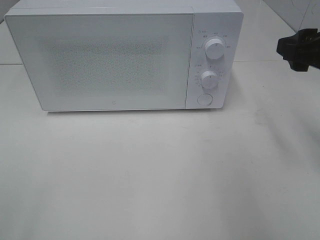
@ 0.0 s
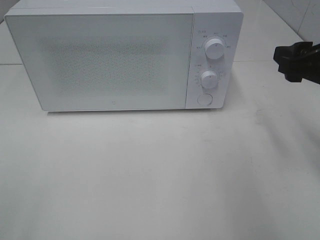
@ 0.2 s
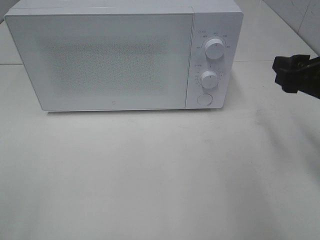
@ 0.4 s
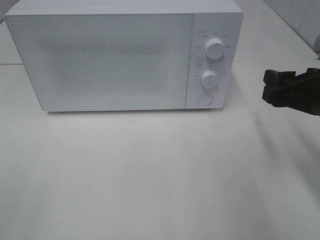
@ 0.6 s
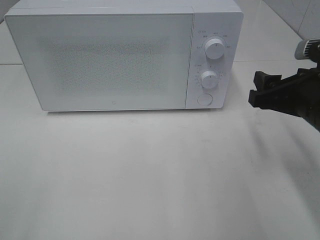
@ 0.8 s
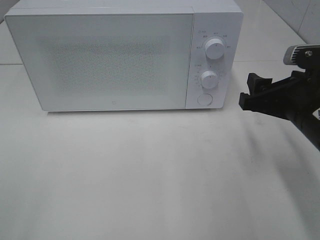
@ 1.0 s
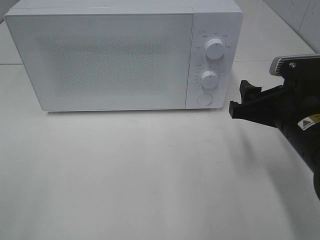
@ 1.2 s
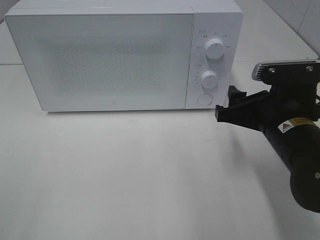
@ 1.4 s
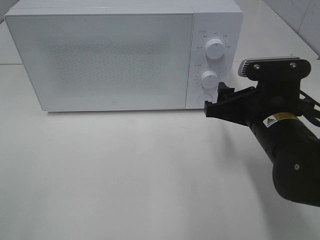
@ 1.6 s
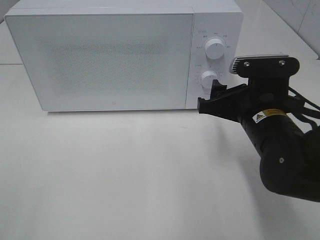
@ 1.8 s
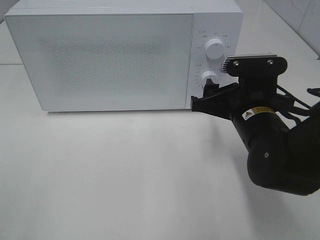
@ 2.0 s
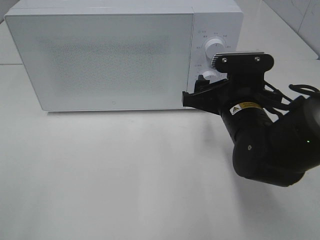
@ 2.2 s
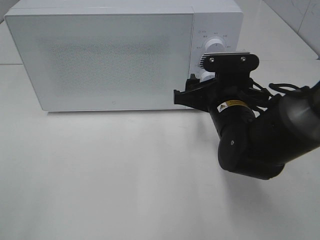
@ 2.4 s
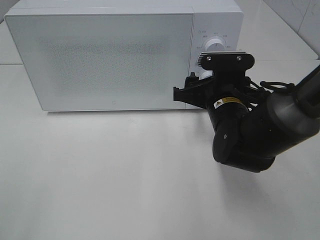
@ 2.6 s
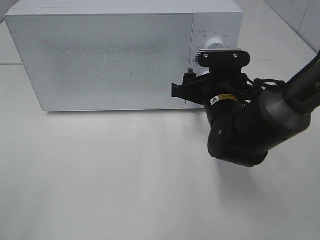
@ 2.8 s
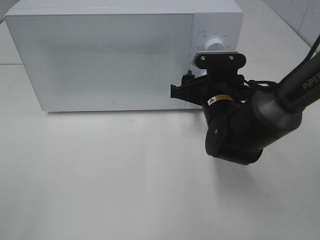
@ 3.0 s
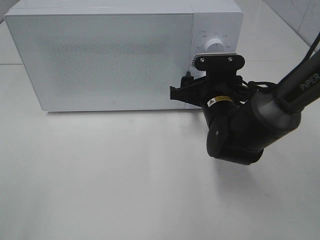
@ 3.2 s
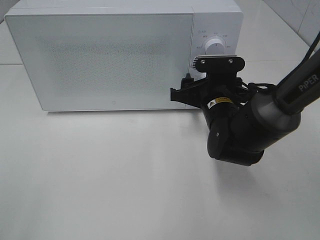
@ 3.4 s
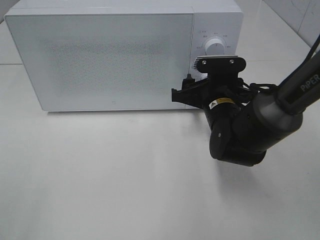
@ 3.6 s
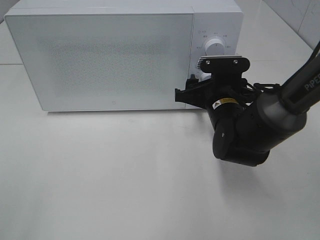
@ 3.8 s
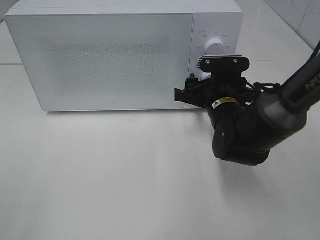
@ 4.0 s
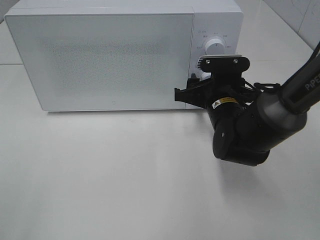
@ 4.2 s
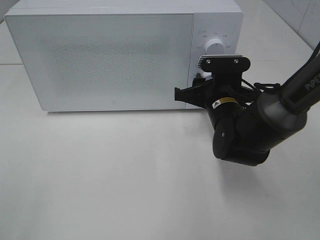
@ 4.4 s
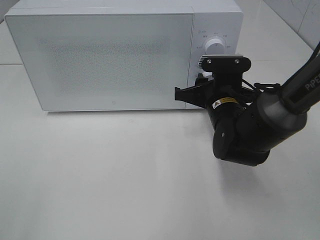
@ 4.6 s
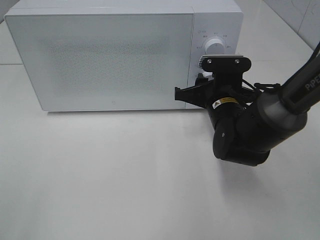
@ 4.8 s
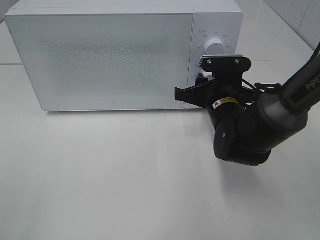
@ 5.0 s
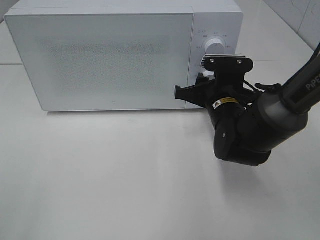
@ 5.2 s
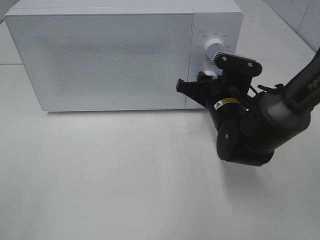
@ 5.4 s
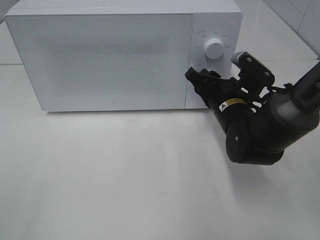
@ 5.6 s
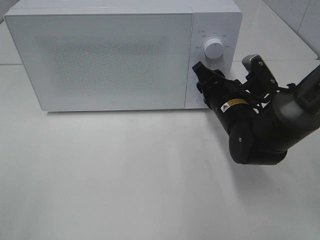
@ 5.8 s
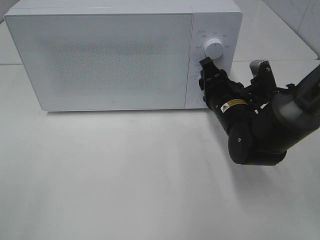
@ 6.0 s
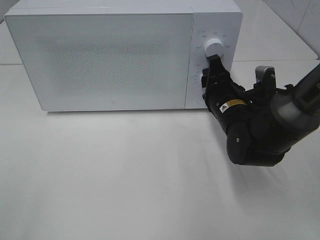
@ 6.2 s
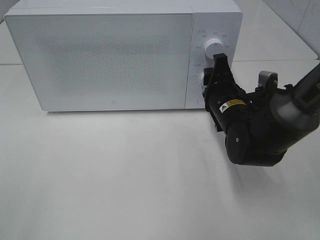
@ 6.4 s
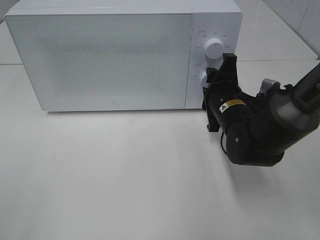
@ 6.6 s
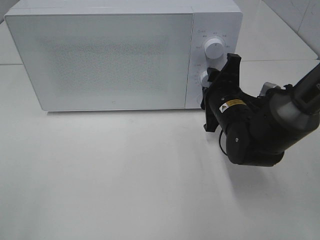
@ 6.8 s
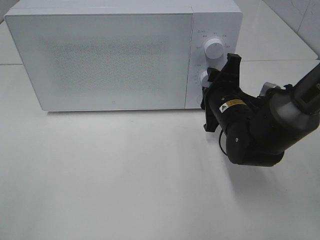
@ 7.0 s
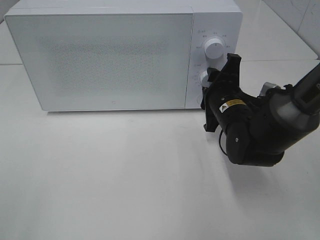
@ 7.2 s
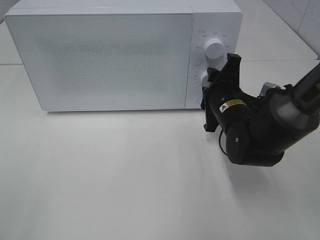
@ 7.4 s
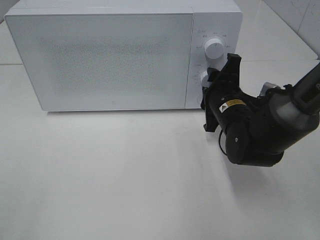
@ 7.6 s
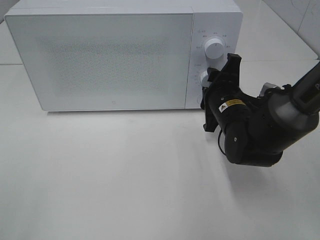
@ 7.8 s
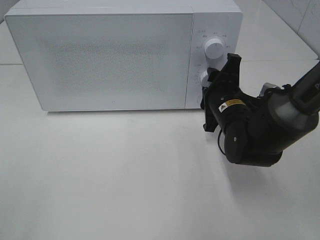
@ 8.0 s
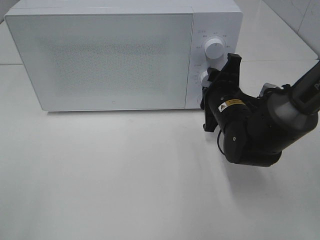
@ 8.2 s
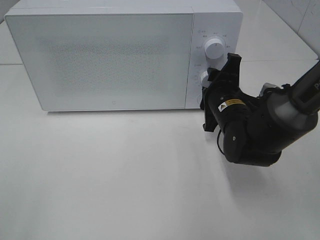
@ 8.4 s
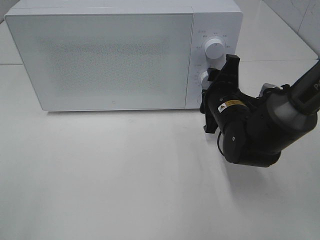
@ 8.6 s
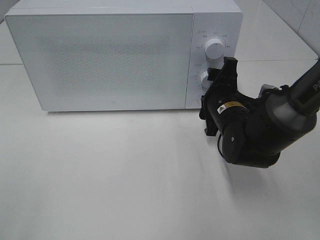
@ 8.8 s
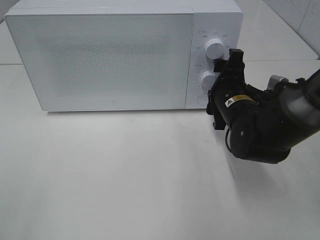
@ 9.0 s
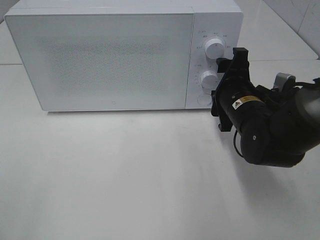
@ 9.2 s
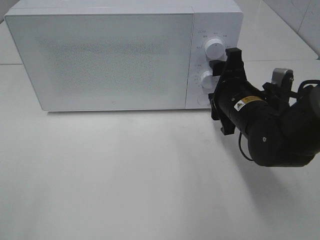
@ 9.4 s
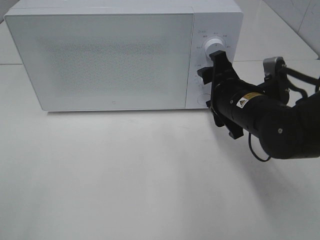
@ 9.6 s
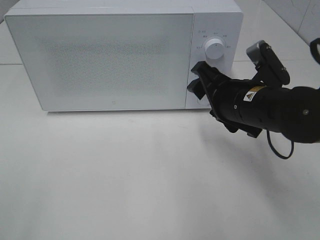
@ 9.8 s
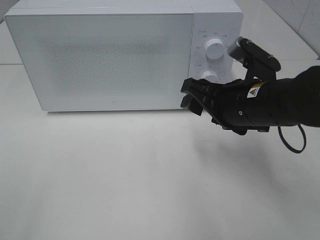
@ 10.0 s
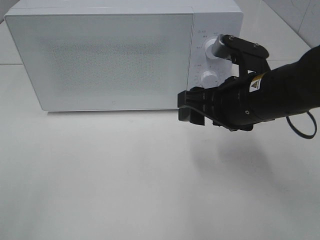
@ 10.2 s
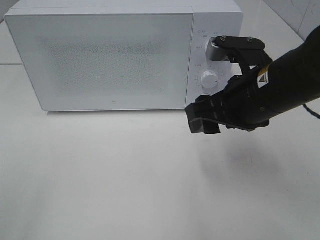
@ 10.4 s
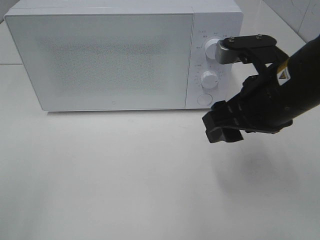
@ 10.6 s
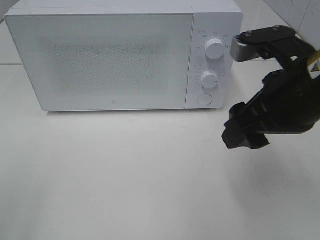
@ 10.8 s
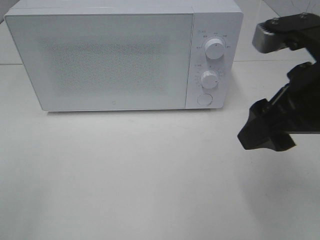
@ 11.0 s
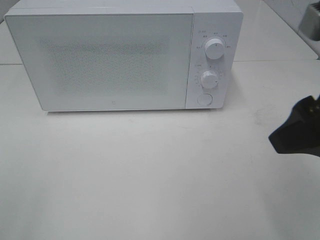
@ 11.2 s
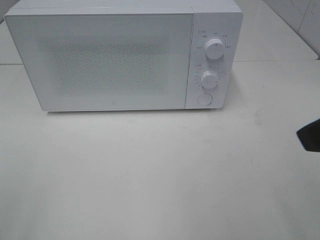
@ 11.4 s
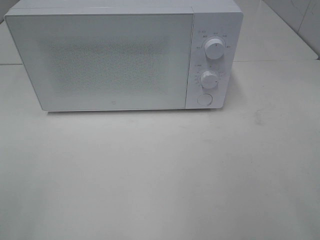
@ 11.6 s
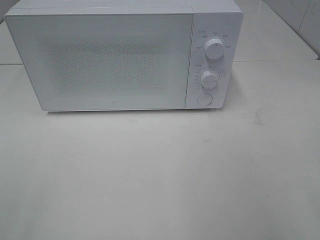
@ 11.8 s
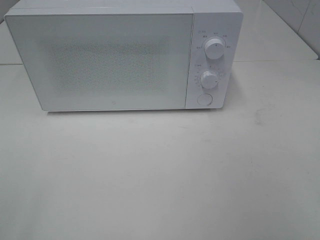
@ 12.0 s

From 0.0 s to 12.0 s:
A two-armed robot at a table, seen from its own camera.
Task of the whole recording: Heat the burger.
Step, from 0.0 s to 8.8 s: Right hand: twist timer button.
From 0.0 s to 1.6 s: The right gripper travels downward and to the left by about 15 cm.
From 1.6 s to 3.0 s: The right gripper is displaced forward by about 10 cm.
From 3.0 s to 4.4 s: Both grippers stay about where they are.
From 7.6 s to 9.0 s: The grippers stay close to where they were, moving slightly.
From 9.0 s to 10.4 s: The right gripper goes some 10 cm upward and backward.
From 10.4 s to 12.0 s: The right gripper heads backward, to the right and upward, covering roughly 25 cm.

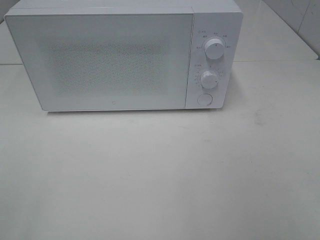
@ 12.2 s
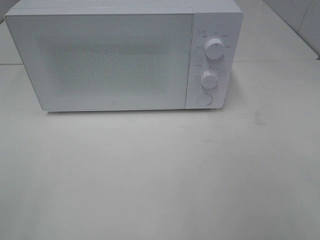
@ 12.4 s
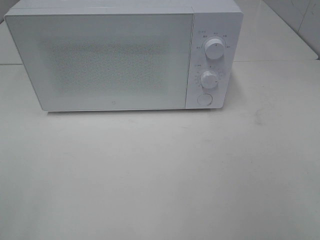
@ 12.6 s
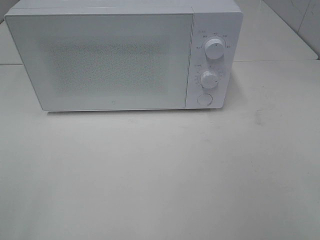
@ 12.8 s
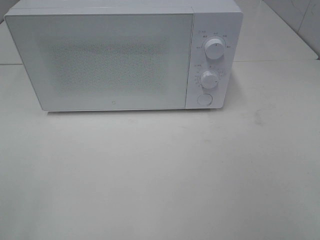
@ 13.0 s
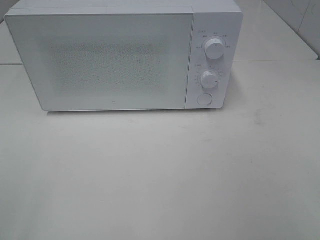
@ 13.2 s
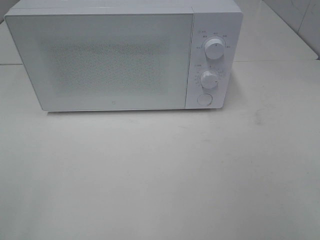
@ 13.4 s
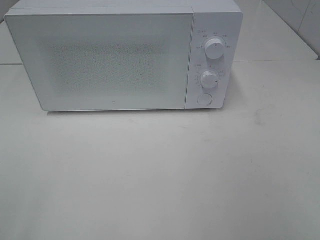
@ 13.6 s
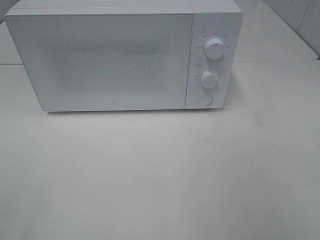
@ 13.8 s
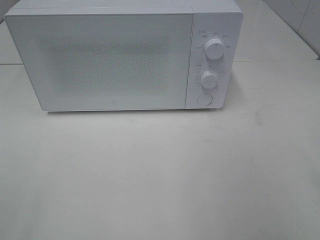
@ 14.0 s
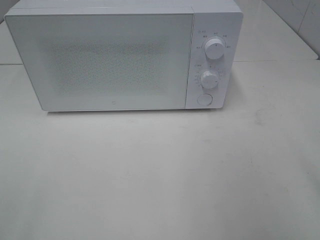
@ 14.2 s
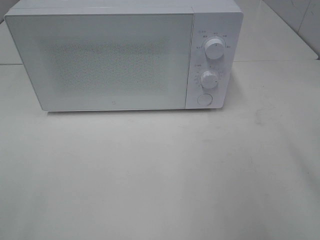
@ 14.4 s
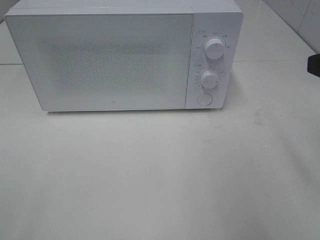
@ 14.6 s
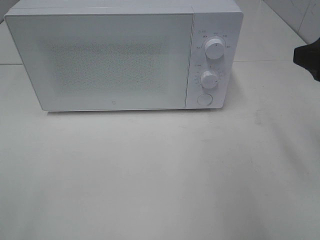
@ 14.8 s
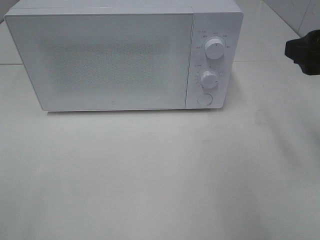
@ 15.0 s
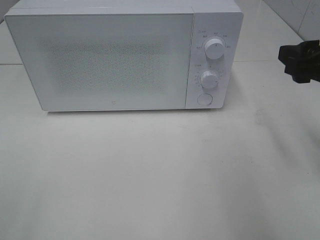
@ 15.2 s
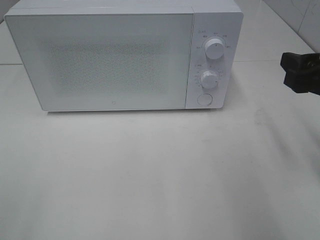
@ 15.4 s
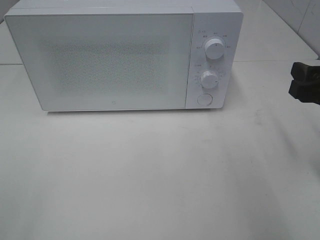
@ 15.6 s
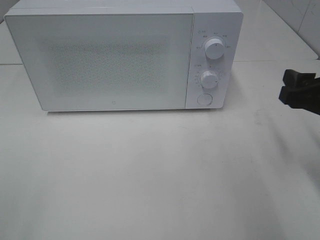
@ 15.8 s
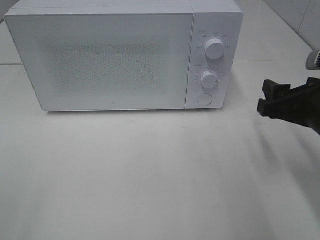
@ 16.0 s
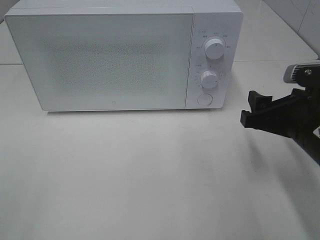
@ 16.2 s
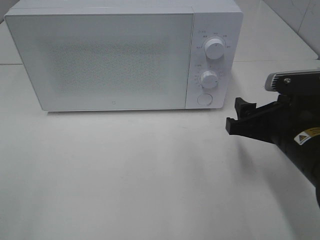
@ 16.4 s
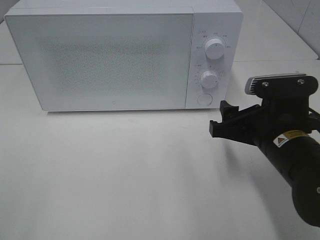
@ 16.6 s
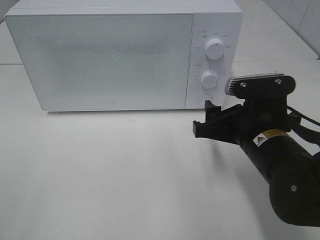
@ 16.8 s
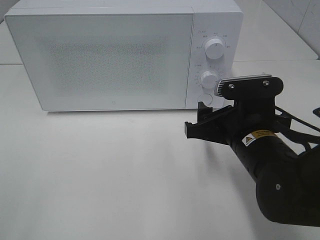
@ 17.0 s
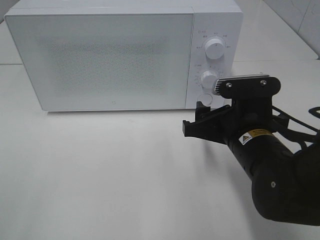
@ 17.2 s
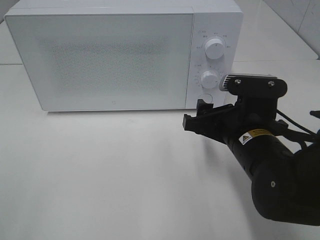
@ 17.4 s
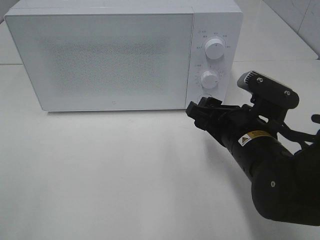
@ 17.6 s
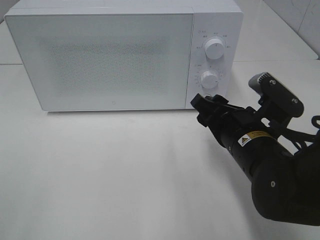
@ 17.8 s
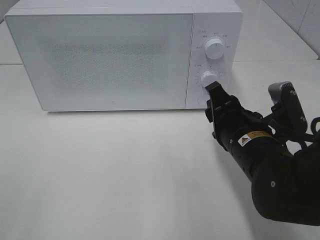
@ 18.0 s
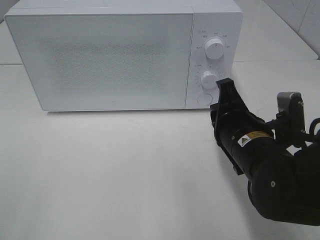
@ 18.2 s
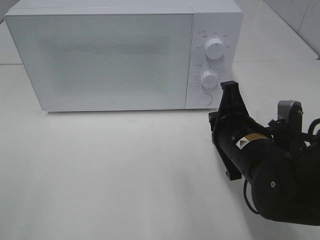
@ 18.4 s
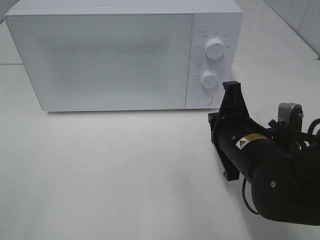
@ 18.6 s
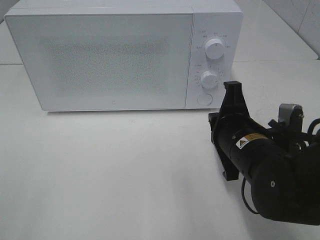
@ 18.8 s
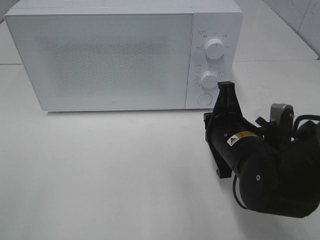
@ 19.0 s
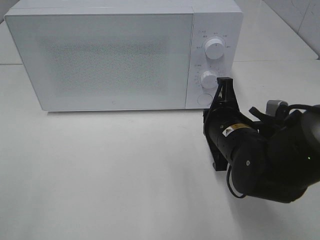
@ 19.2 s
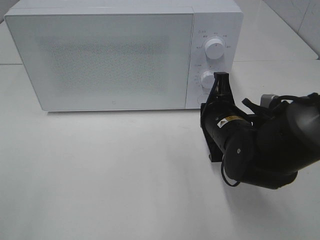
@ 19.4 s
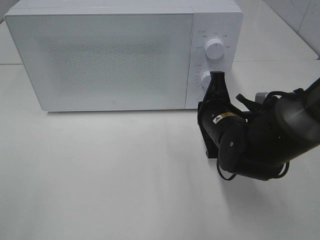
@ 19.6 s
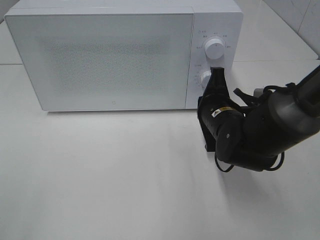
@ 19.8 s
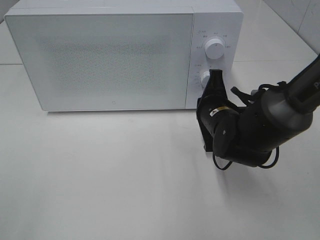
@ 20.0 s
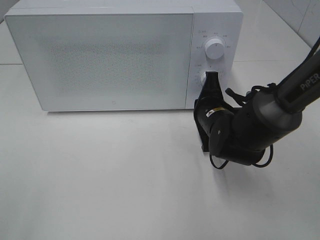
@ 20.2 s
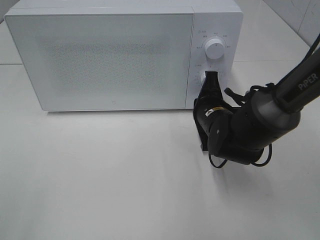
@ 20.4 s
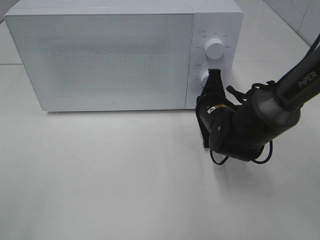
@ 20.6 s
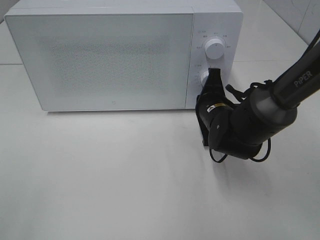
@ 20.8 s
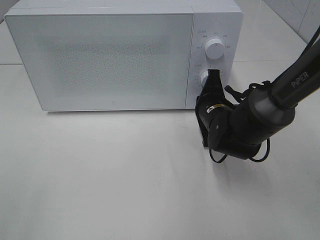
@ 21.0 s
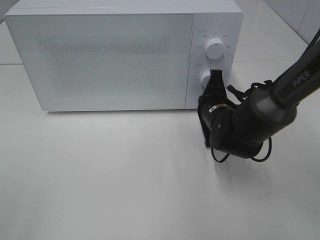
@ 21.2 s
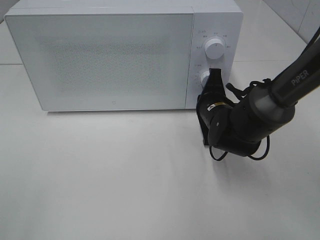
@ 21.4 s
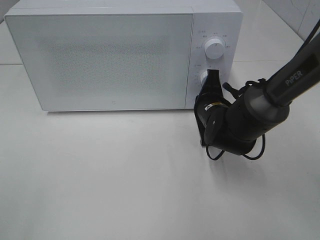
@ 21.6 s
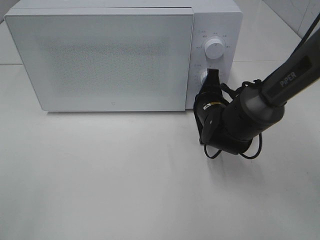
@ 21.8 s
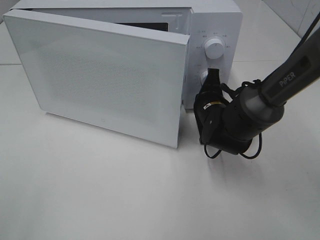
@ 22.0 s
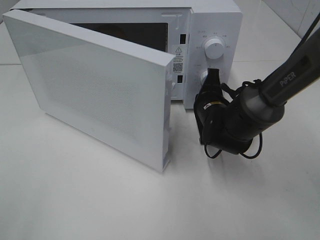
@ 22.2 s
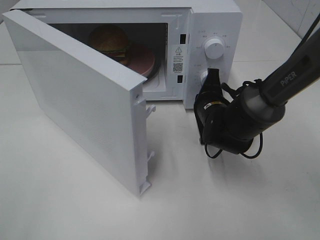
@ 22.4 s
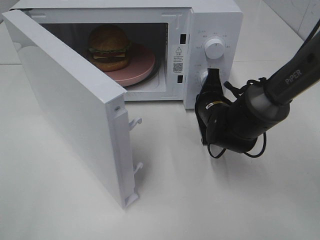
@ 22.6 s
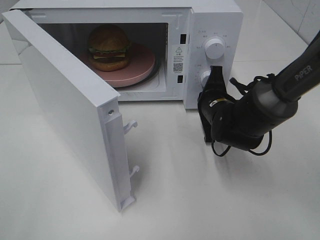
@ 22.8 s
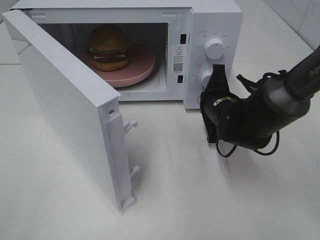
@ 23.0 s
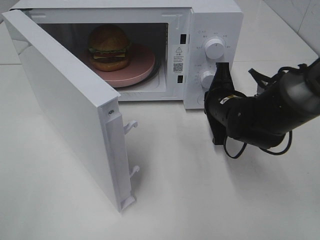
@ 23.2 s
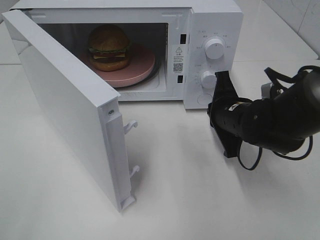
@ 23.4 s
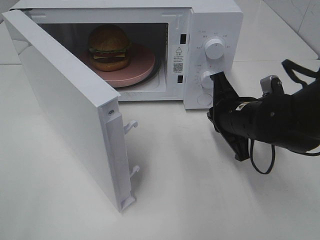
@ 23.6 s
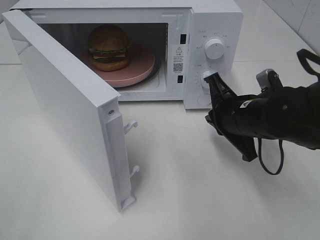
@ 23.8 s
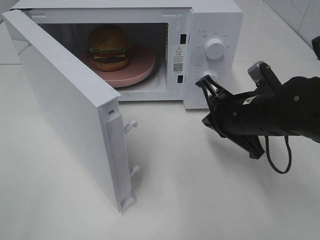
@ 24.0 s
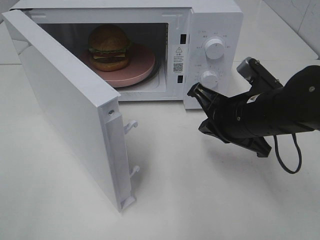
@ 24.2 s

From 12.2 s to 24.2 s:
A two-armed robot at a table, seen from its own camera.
Task of the whole recording: Heat the burger.
Step, from 12.2 s to 23.2 s: Right hand: press the switch.
From 13.8 s to 15.2 s: The right gripper travels forward by some 15 cm.
From 15.2 s to 16.6 s: The right gripper goes approximately 15 cm downward and to the left.
From 16.6 s to 18.2 s: The right gripper closes up.
From 18.2 s to 19.8 s: The right gripper heads forward, covering roughly 10 cm.
From 19.8 s to 21.2 s: The grippers make only small movements.
From 22.6 s to 24.2 s: The right gripper shifts approximately 15 cm backward and upward.
